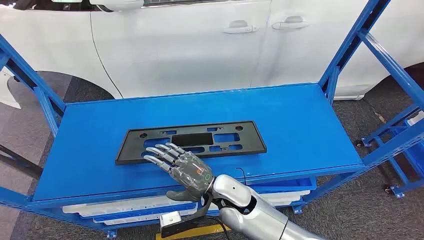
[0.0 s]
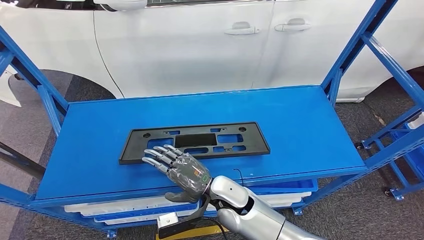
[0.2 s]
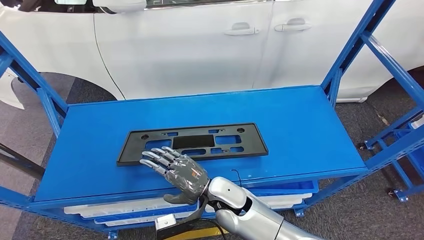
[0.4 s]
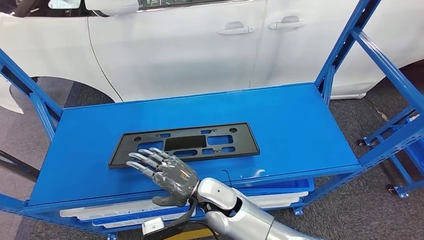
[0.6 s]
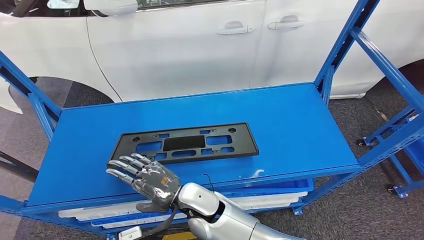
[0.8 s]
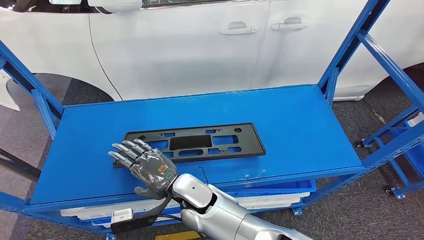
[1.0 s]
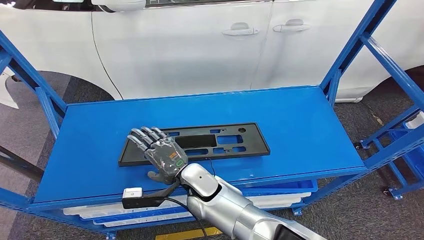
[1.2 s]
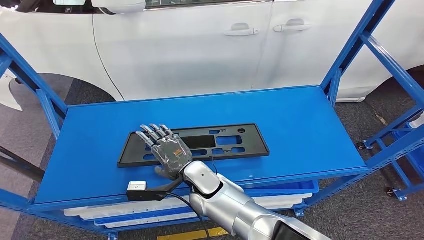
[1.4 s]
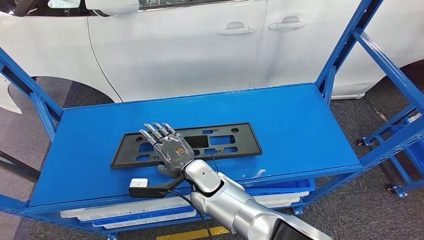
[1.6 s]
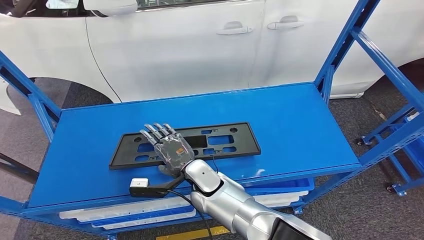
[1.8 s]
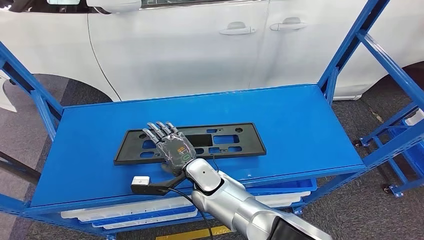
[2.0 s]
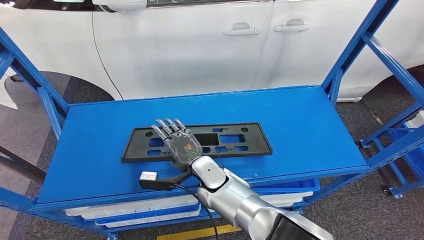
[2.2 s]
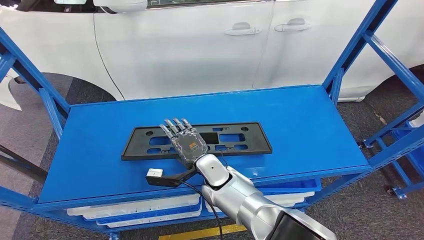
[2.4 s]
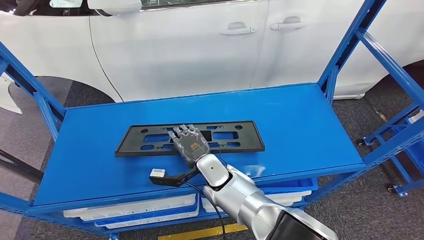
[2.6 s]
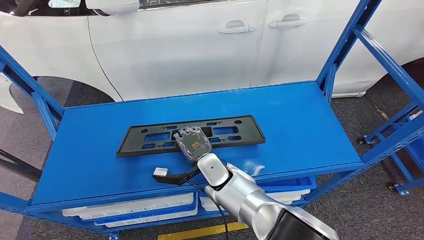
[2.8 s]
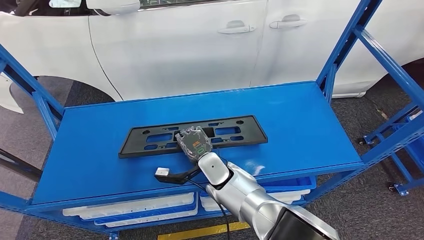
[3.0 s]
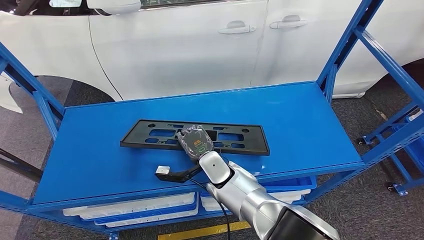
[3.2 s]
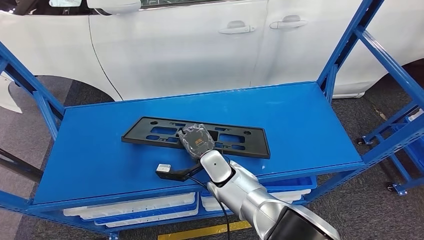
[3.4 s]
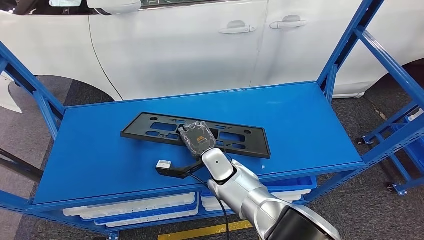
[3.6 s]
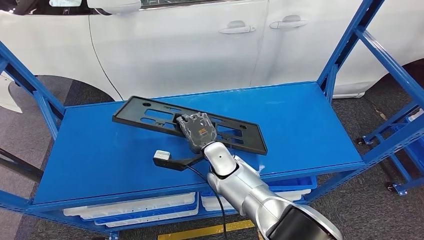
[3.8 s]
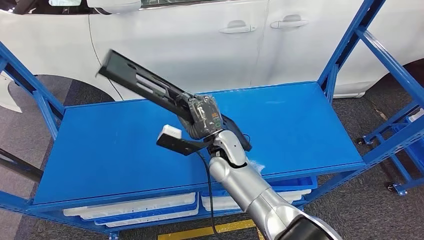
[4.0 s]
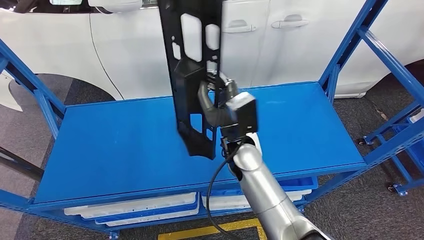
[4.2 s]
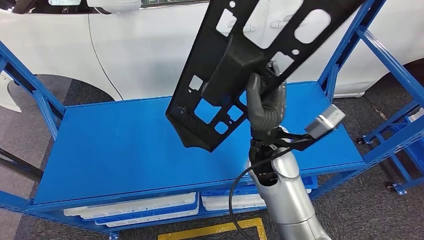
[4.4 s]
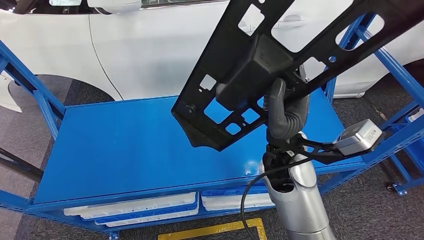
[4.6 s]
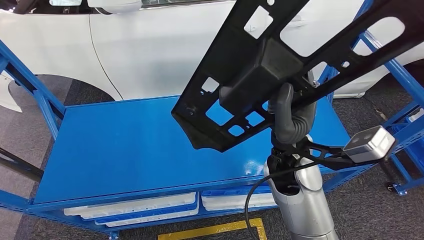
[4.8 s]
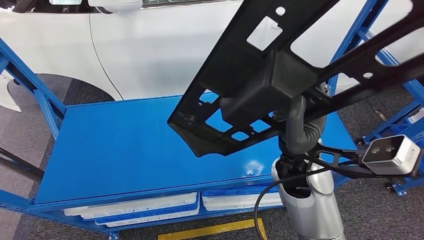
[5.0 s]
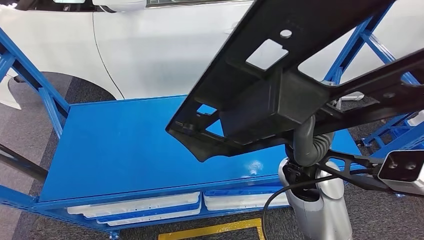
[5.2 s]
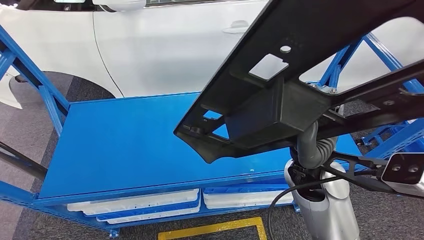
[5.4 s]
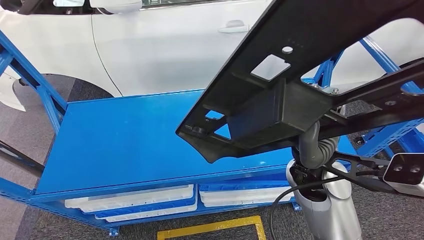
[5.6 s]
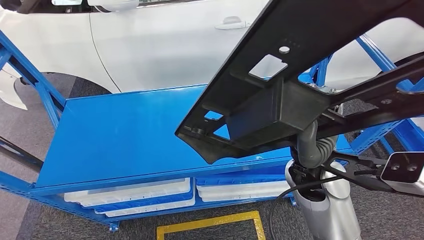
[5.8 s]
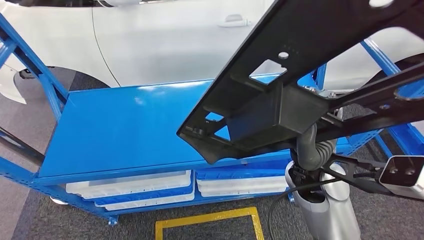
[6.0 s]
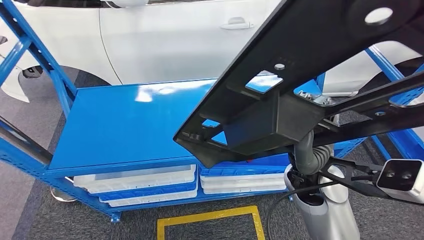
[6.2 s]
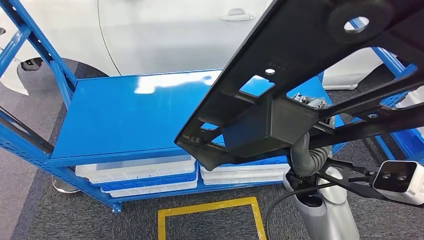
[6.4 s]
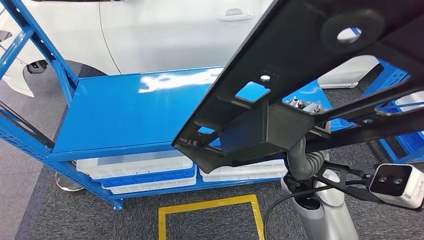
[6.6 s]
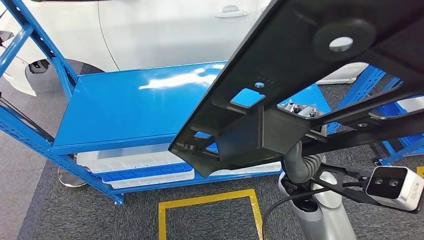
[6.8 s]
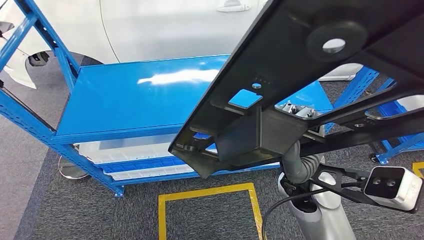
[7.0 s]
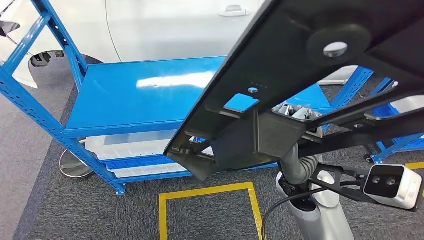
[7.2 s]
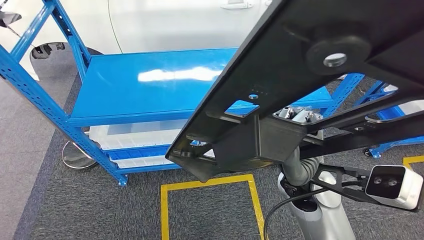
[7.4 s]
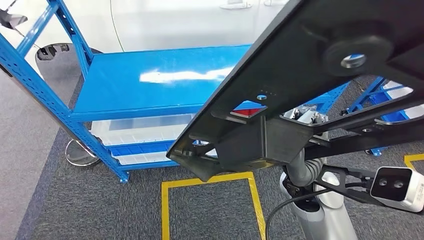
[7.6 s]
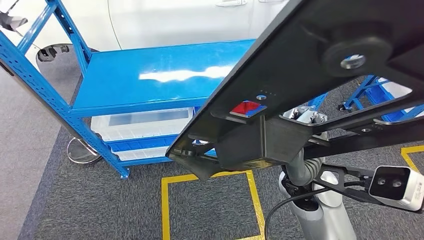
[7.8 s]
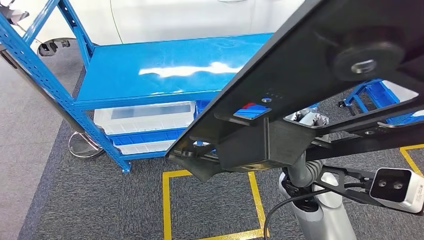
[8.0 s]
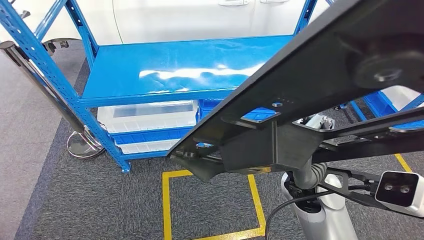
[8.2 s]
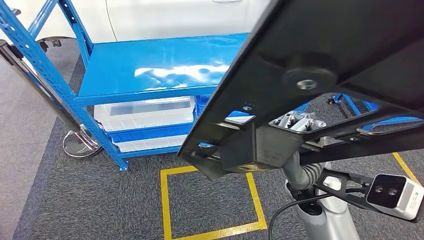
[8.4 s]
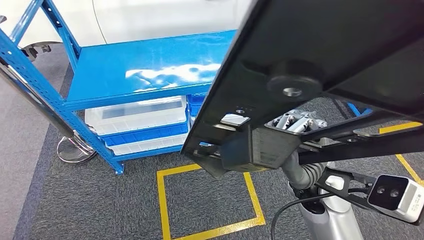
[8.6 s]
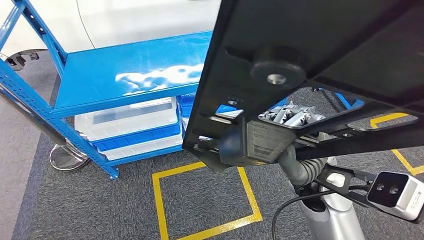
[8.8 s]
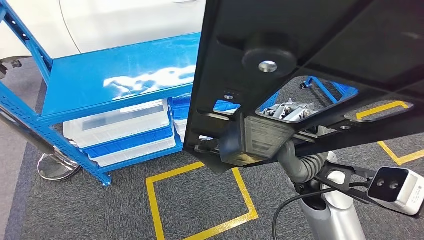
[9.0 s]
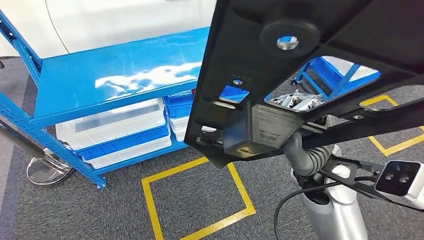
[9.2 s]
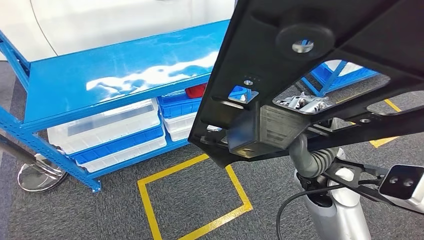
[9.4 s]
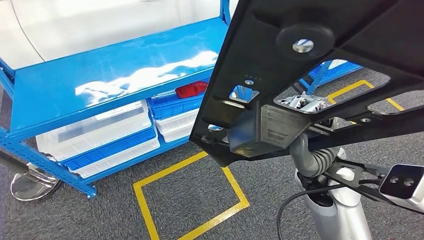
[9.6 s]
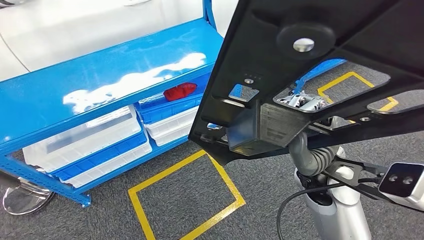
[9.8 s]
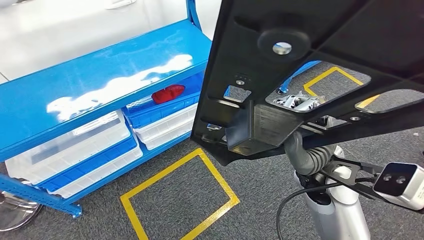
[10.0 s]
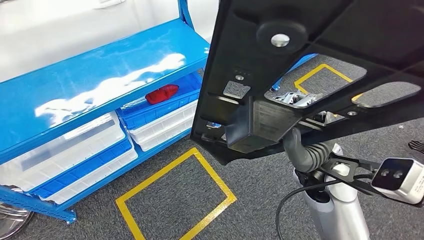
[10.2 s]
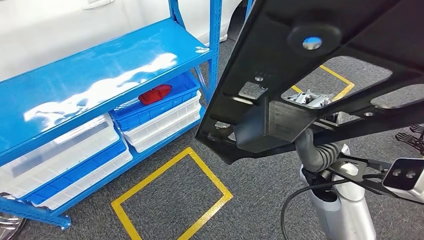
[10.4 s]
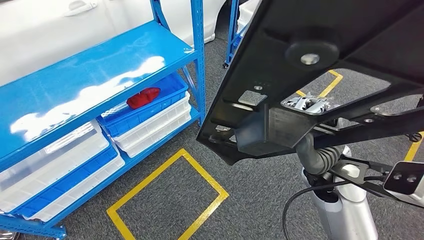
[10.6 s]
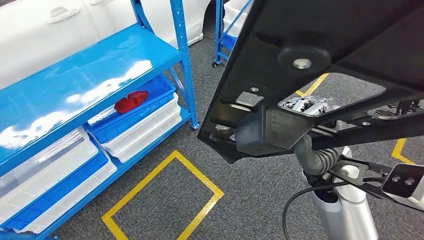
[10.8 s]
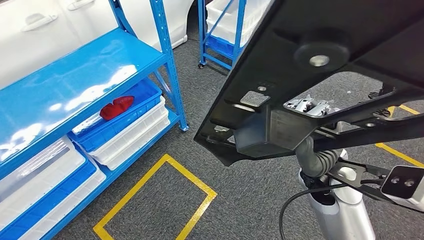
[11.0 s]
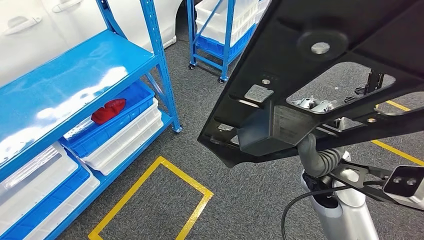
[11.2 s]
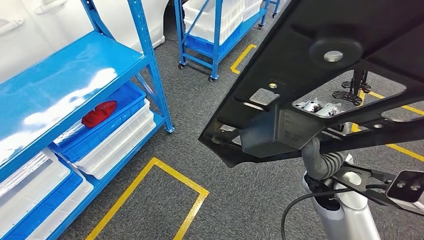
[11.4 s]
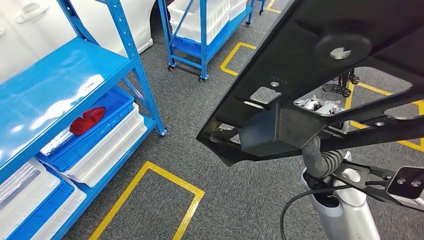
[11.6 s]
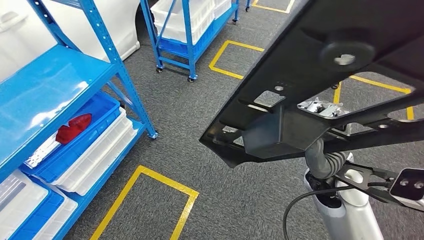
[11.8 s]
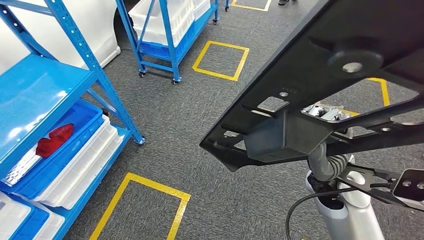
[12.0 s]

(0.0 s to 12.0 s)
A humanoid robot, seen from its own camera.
Step, 0.0 s - 5.0 s: Pick up the small parts from the shelf.
1.6 s - 3.0 s: The right hand moves roughly 5 cm.

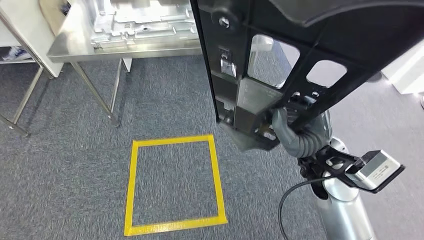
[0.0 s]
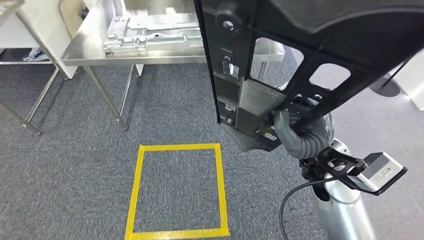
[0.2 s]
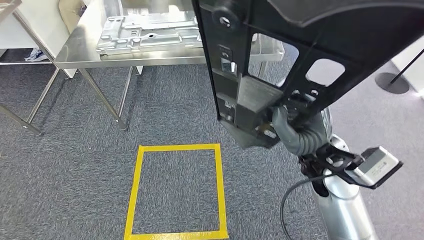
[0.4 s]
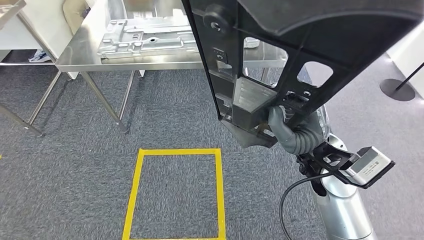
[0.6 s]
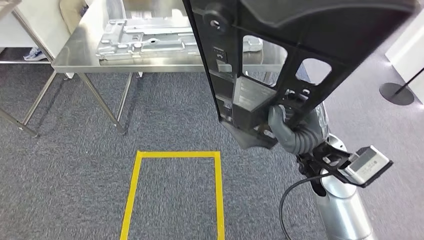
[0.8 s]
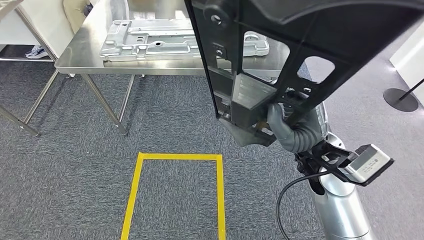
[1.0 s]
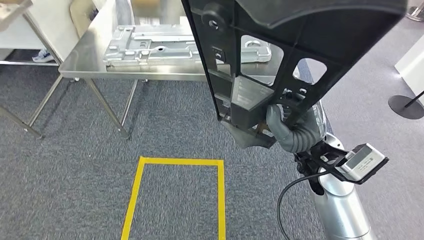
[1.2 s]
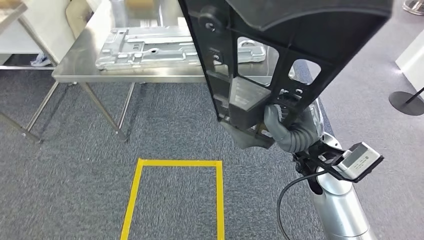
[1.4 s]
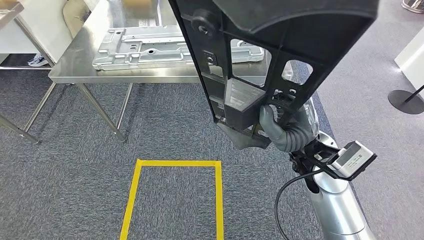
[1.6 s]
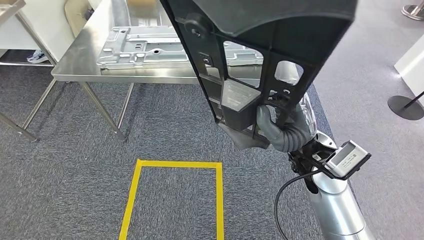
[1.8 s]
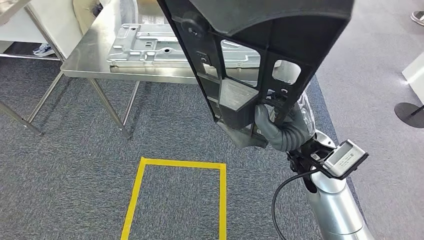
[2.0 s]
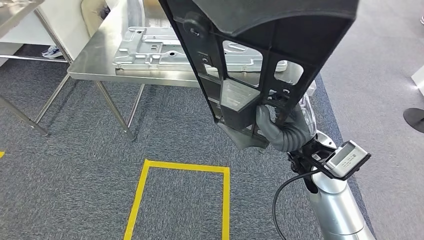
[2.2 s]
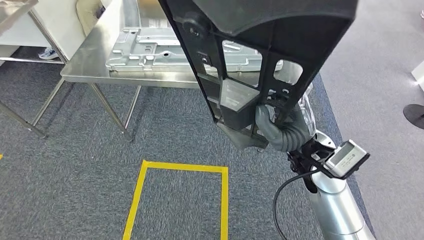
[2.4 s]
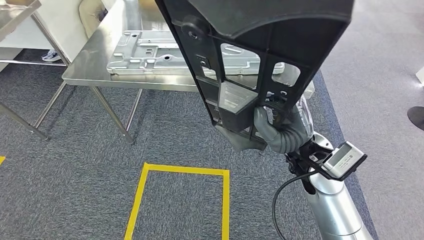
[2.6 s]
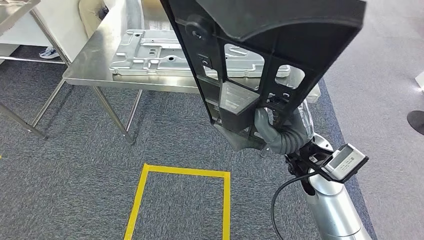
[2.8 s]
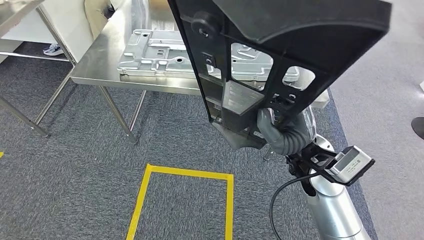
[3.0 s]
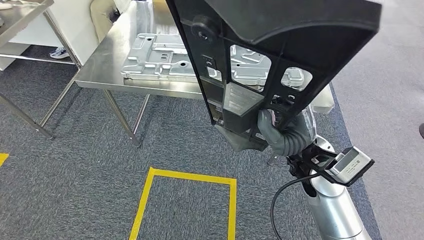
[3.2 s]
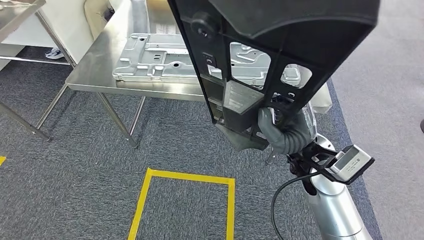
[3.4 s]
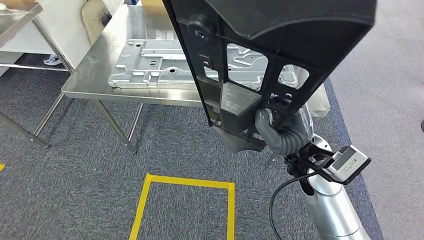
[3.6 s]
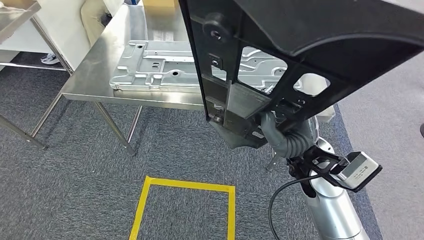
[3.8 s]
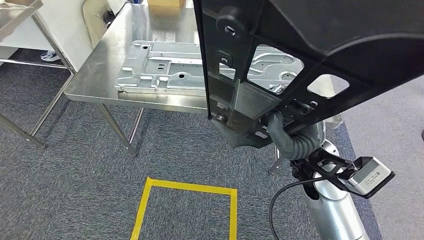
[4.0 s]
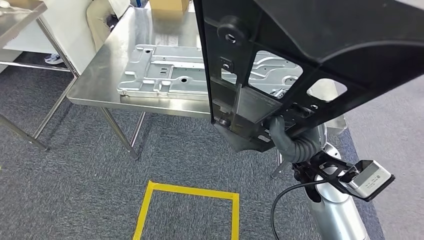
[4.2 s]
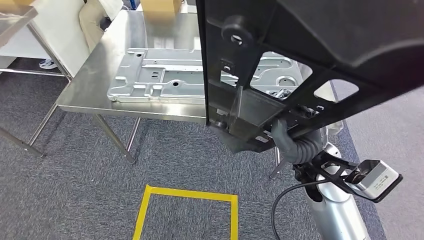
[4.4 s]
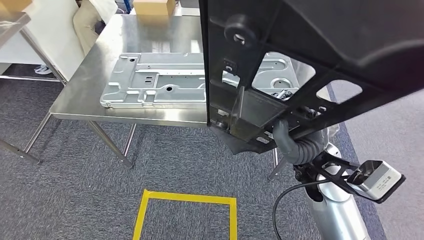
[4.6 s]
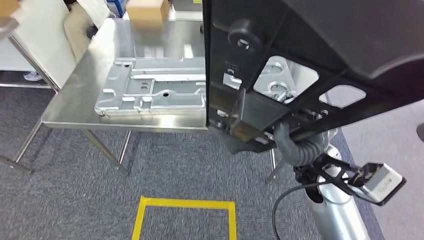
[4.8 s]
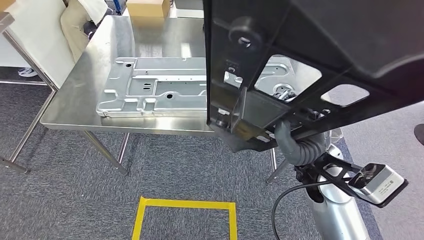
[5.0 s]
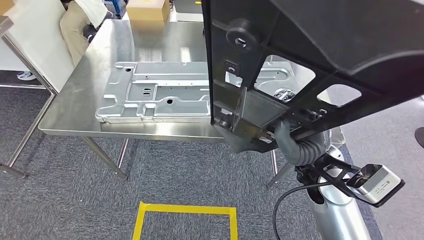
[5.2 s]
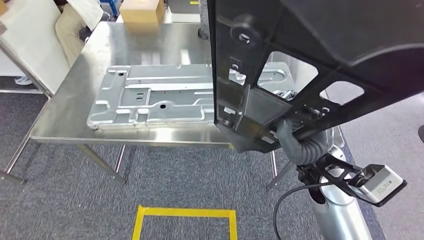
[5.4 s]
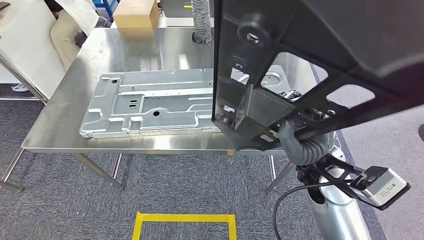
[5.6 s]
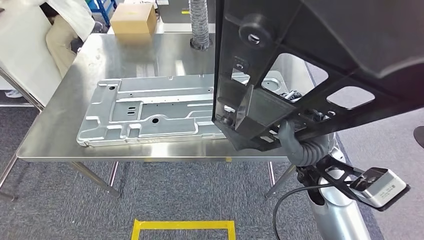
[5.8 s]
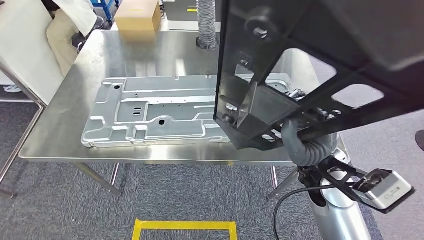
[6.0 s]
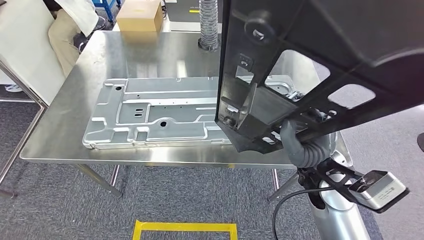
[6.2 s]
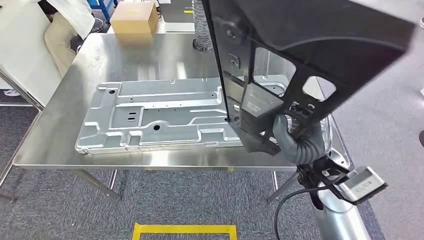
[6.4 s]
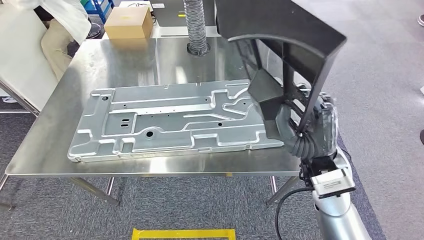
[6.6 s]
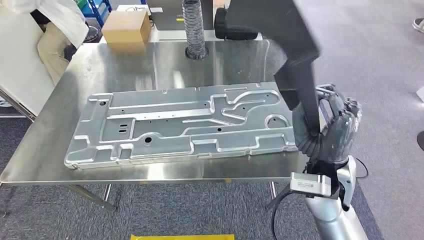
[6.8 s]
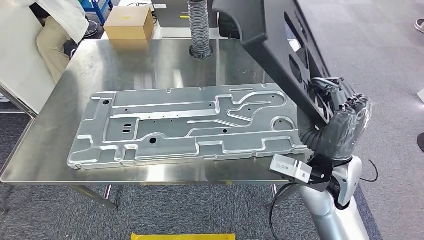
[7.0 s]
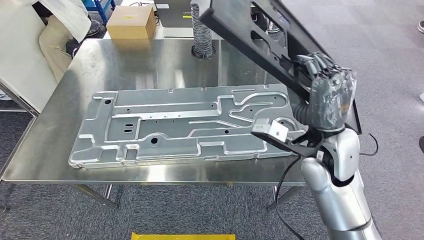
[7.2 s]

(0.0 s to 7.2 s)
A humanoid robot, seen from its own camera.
Step, 0.0 s - 6.4 s: Move the small parts to the workbench.
